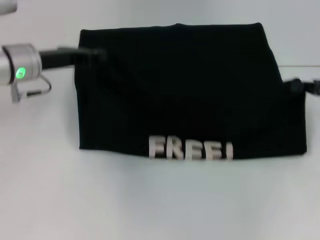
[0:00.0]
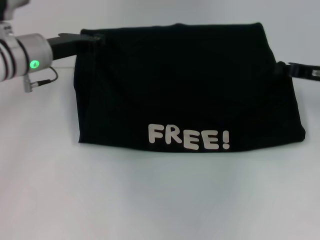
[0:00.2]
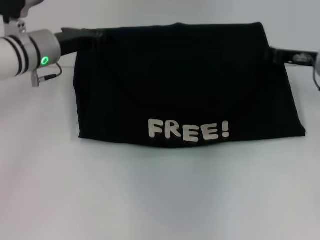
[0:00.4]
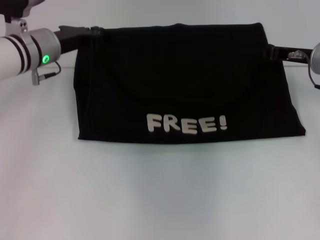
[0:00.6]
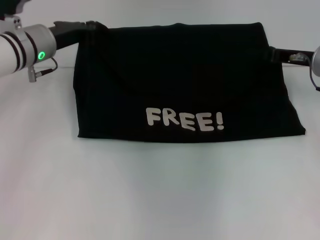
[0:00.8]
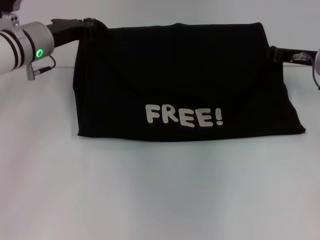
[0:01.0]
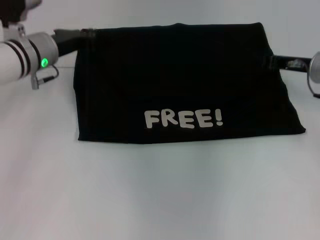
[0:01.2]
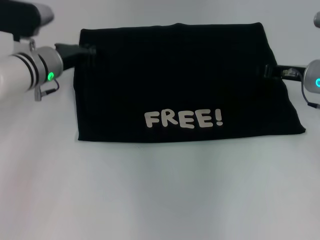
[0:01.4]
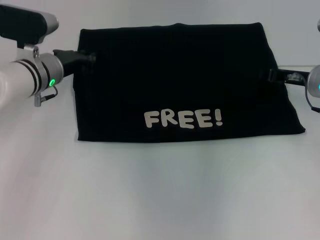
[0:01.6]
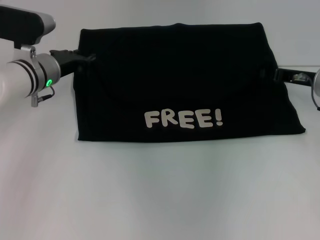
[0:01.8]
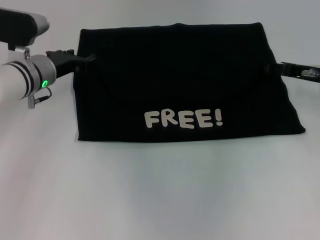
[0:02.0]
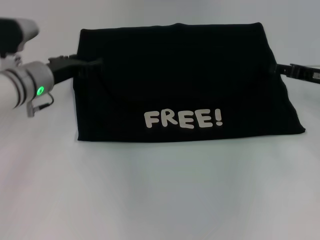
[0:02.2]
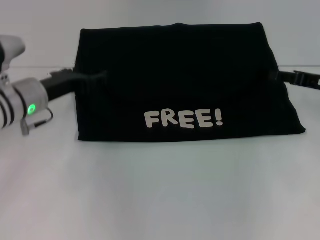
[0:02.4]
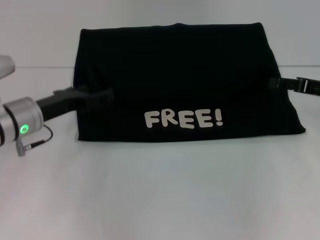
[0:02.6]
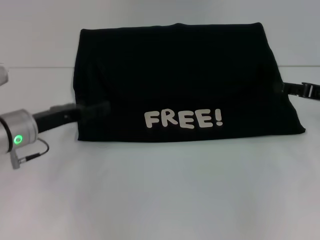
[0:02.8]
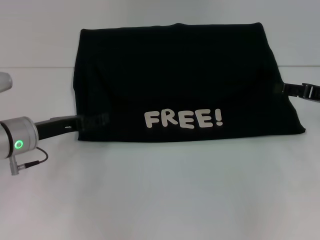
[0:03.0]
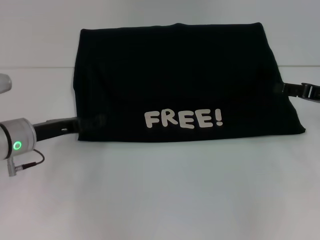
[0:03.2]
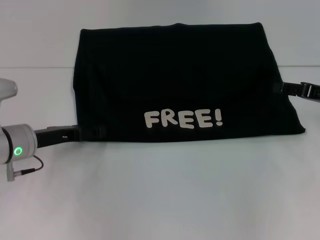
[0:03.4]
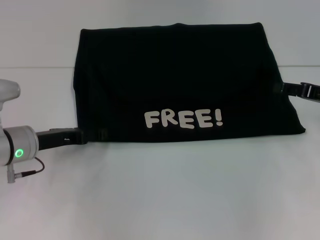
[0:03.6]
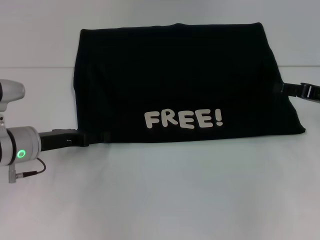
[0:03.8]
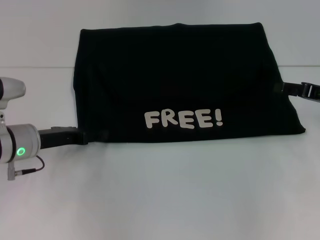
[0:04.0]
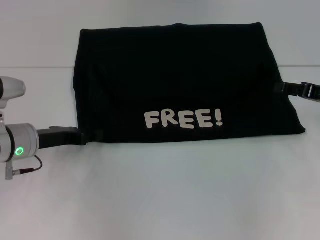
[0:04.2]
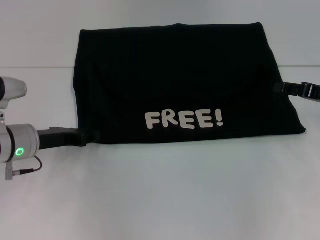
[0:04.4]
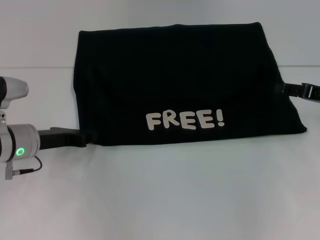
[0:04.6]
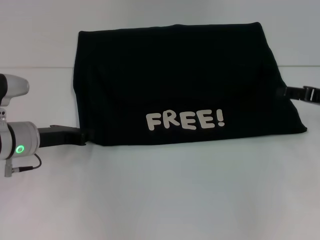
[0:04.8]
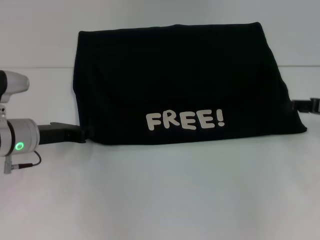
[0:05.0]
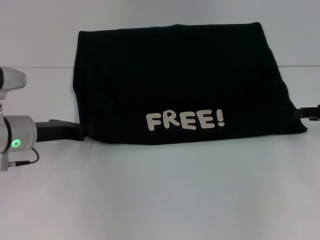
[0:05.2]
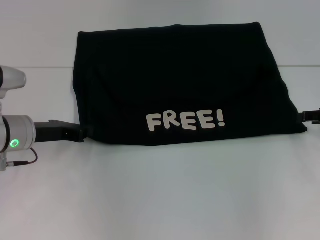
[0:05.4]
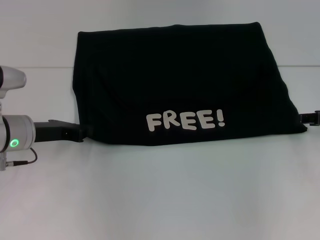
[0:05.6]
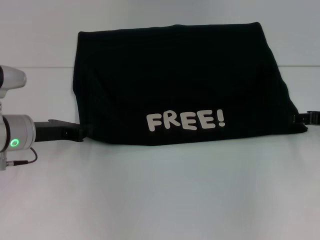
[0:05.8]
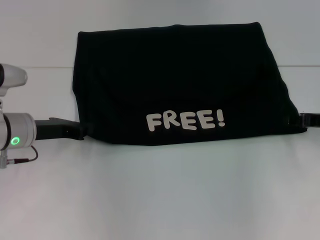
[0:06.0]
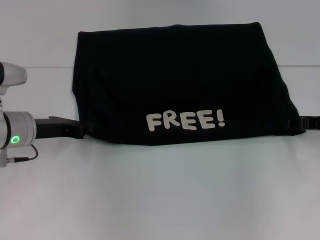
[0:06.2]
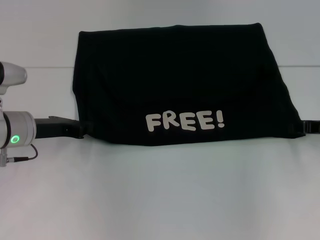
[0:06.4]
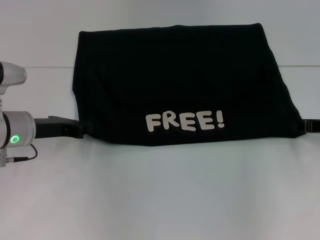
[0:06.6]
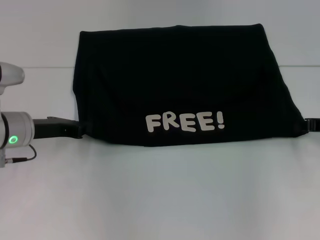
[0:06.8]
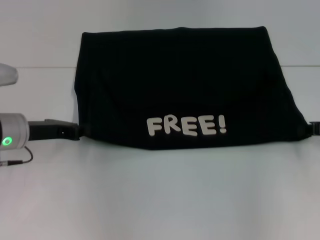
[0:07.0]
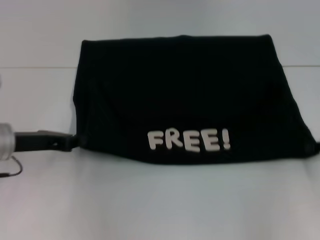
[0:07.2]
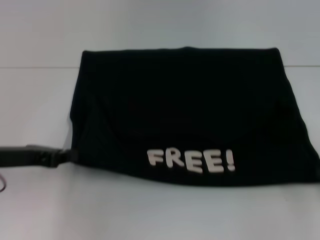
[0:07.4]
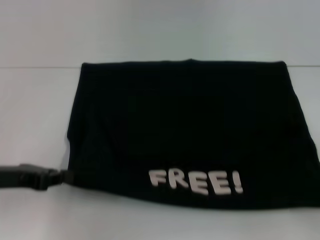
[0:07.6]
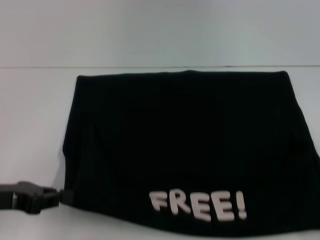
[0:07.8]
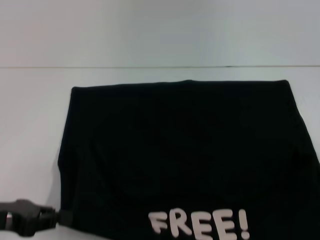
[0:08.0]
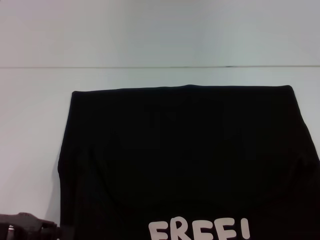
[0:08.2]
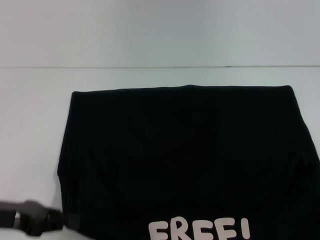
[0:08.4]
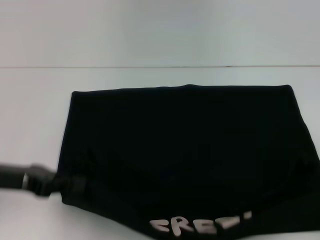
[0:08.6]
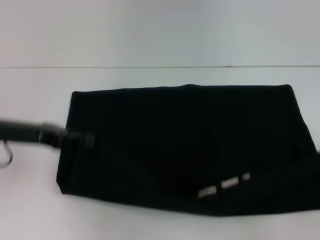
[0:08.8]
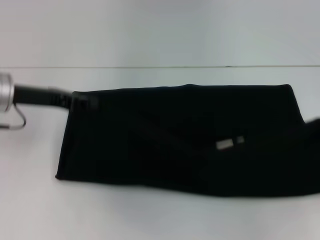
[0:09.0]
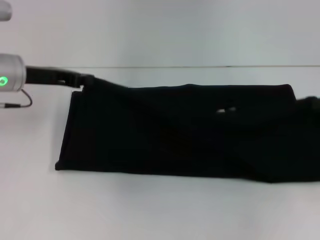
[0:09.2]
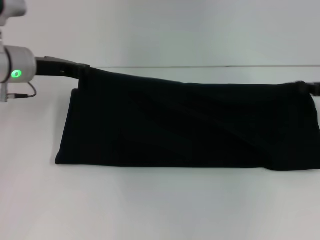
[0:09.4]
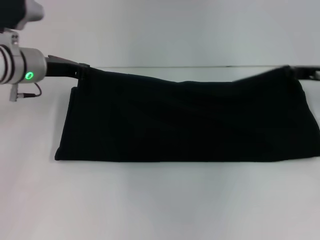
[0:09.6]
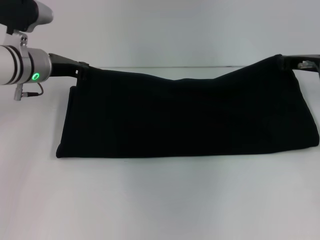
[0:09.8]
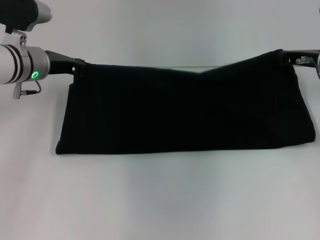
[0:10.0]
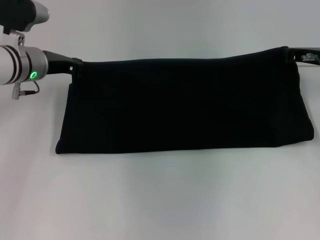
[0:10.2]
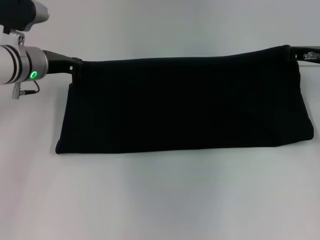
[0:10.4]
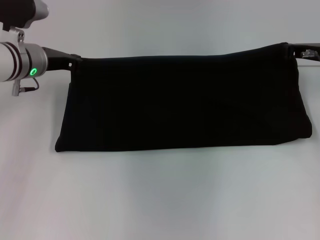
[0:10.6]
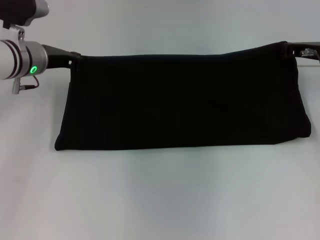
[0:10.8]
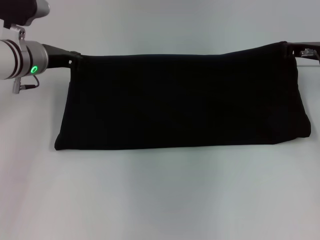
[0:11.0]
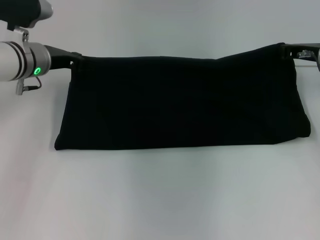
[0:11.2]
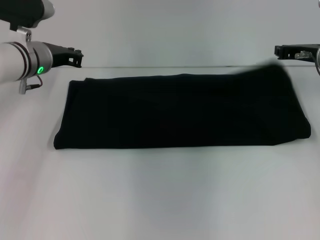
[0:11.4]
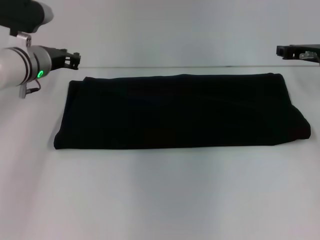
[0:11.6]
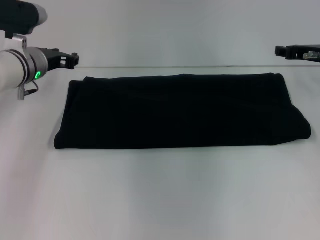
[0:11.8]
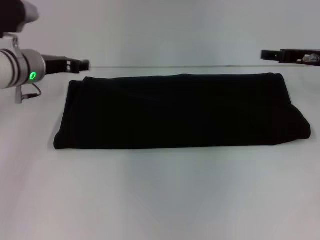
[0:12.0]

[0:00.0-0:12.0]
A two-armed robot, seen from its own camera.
Step, 0:02.0 to 0:08.0: Pull the clothes with your left hand.
Step, 0:02.0 to 0:08.0: Pull the clothes with your right hand.
Step, 0:08.2 to 0:11.2: Fold the clothes with your right hand.
0:00.0 to 0:01.6: The right gripper heads to the left and forward, covering about 10 cm. The left gripper shifts by about 5 cm.
0:01.6 to 0:03.0: The left gripper heads backward, covering about 10 cm, and opens its fingers, while the right gripper heads to the right and backward, covering approximately 10 cm, and opens its fingers.
0:03.0 to 0:04.4: The grippers stay close to where they were, moving slightly.
0:04.4 to 0:06.0: The left gripper closes up.
0:06.0 to 0:07.6: The right gripper heads backward and to the right, covering some 15 cm, and closes up; the left gripper goes approximately 10 cm backward and to the left.
0:07.6 to 0:09.0: The left gripper is displaced forward and upward by approximately 10 cm. The right gripper moves forward, about 5 cm.
0:09.0 to 0:10.4: The right gripper shifts roughly 15 cm forward and to the left. The left gripper moves forward, roughly 5 cm.
0:10.4 to 0:12.0: The right gripper opens its fingers; the left gripper opens.

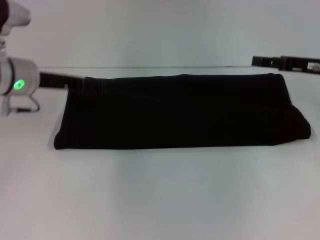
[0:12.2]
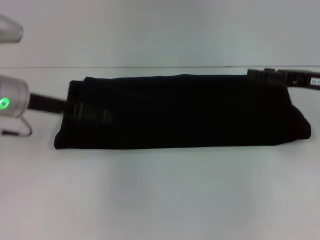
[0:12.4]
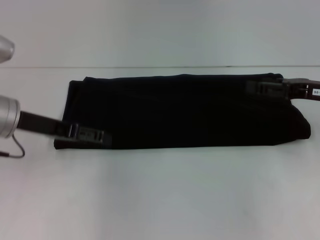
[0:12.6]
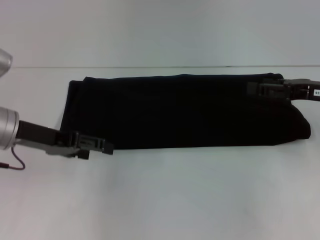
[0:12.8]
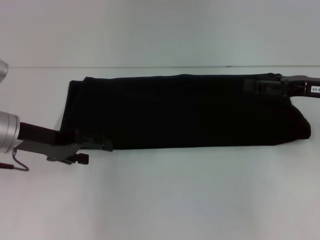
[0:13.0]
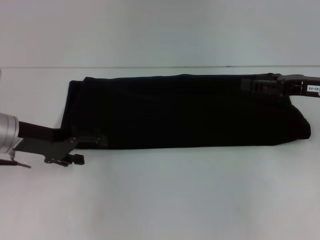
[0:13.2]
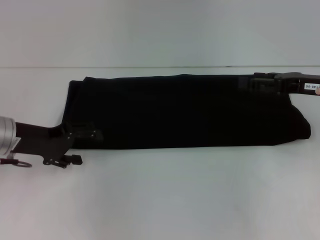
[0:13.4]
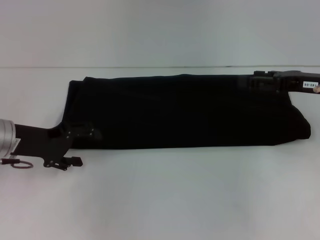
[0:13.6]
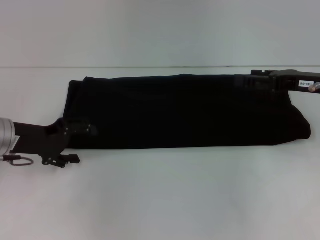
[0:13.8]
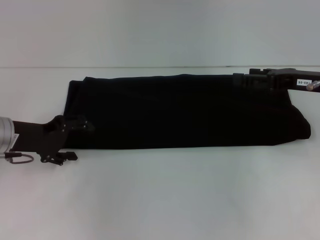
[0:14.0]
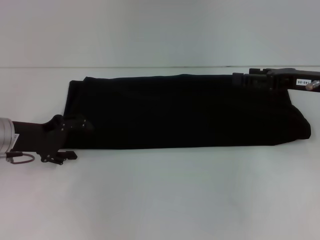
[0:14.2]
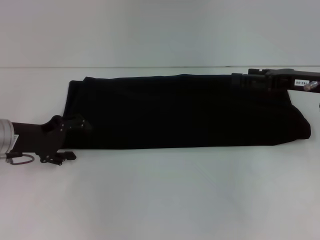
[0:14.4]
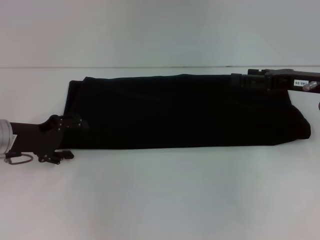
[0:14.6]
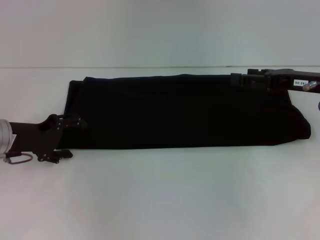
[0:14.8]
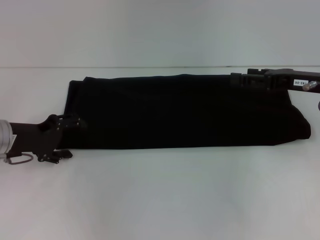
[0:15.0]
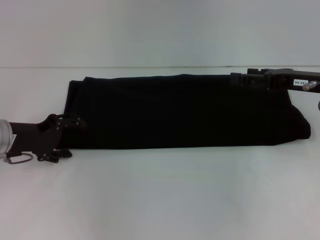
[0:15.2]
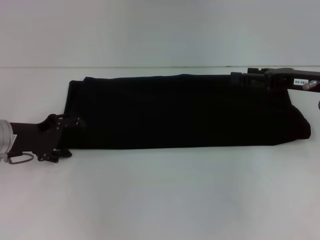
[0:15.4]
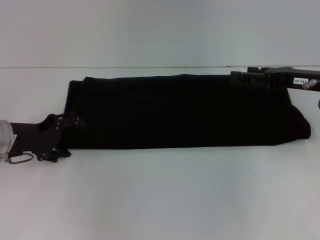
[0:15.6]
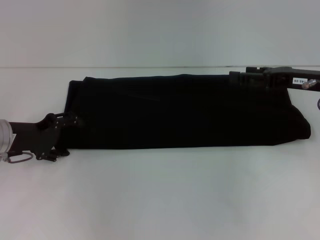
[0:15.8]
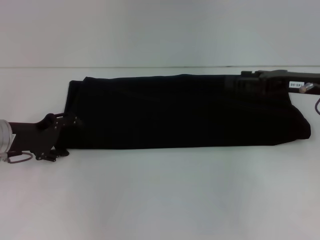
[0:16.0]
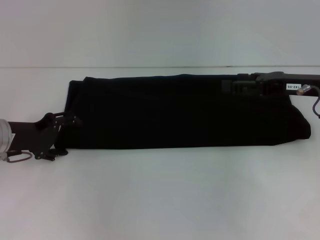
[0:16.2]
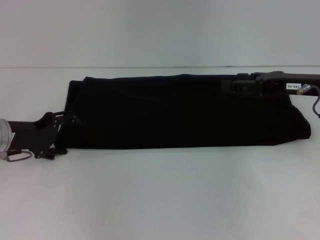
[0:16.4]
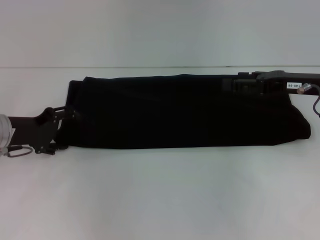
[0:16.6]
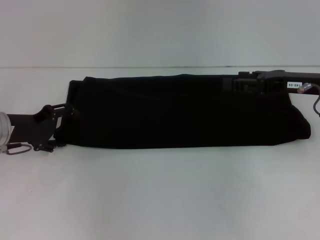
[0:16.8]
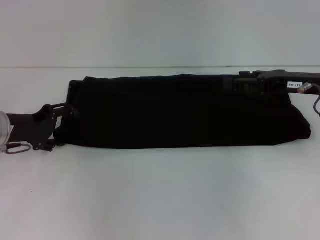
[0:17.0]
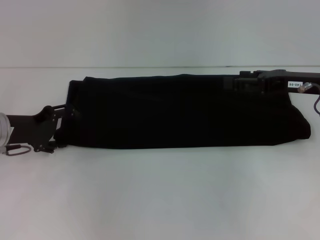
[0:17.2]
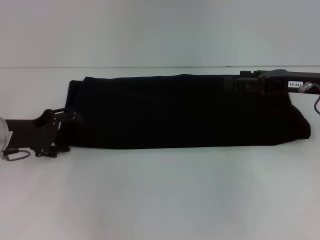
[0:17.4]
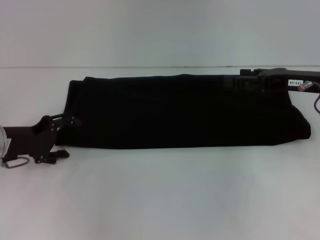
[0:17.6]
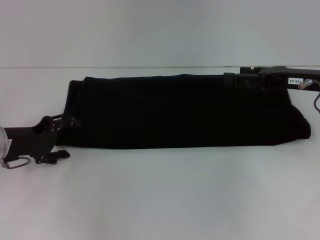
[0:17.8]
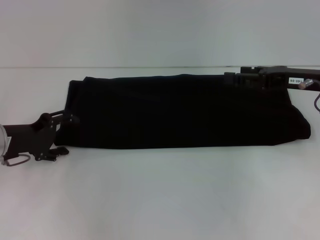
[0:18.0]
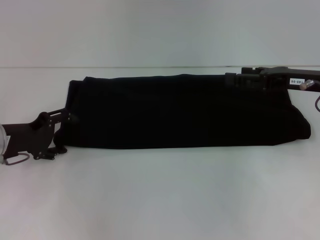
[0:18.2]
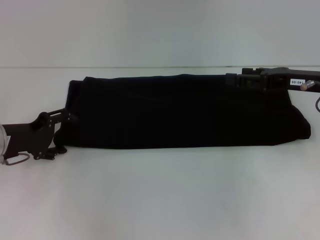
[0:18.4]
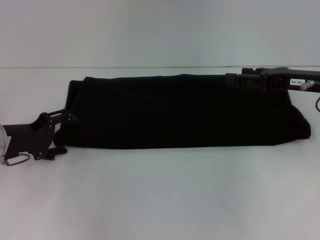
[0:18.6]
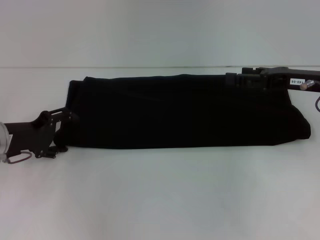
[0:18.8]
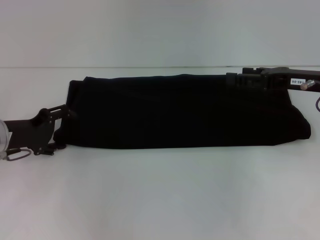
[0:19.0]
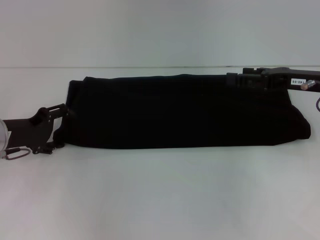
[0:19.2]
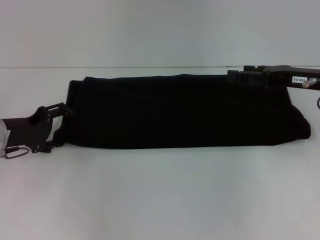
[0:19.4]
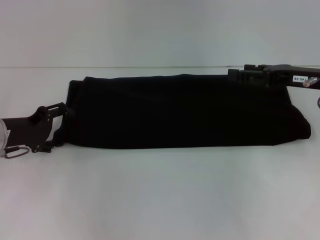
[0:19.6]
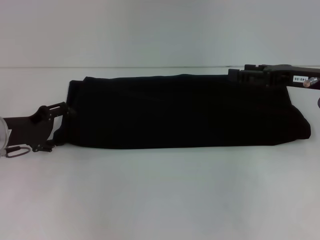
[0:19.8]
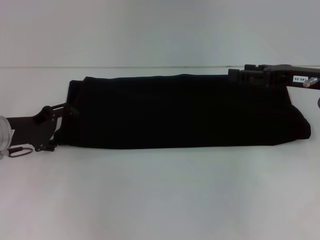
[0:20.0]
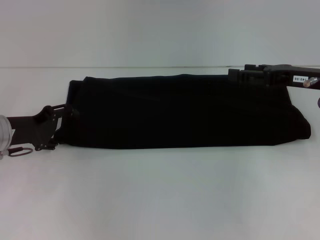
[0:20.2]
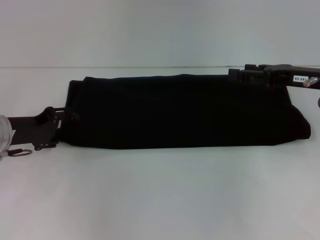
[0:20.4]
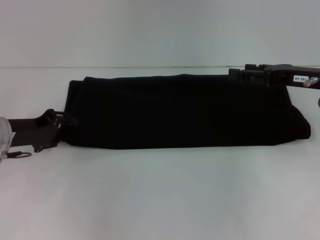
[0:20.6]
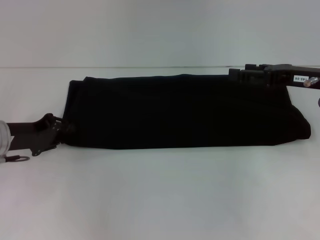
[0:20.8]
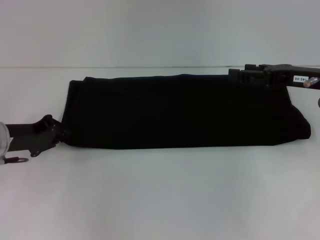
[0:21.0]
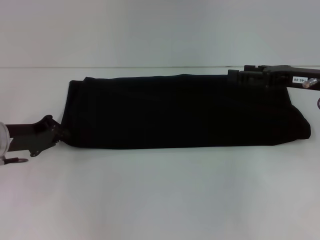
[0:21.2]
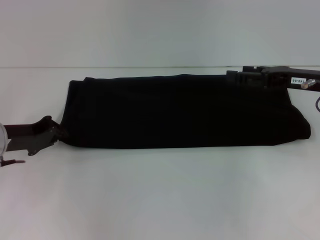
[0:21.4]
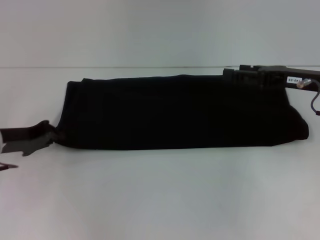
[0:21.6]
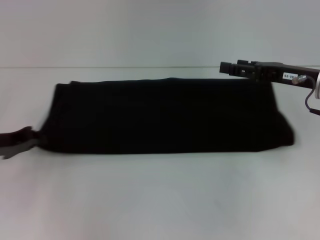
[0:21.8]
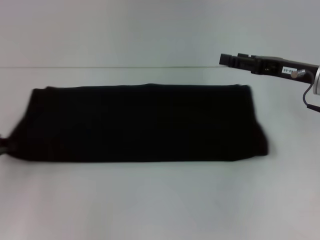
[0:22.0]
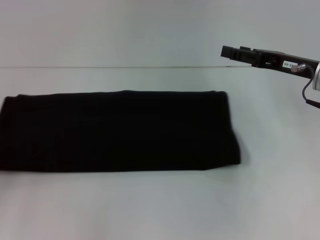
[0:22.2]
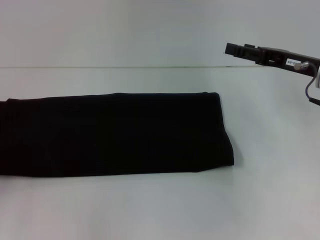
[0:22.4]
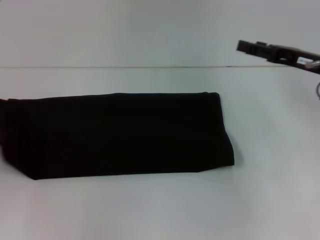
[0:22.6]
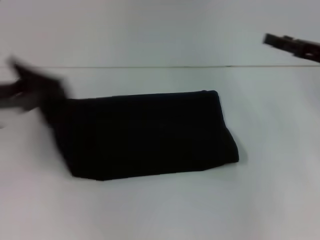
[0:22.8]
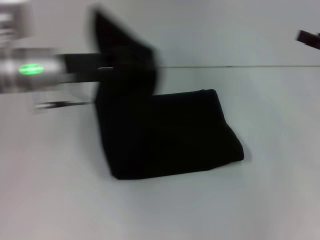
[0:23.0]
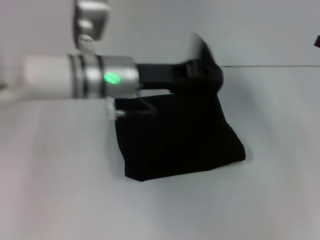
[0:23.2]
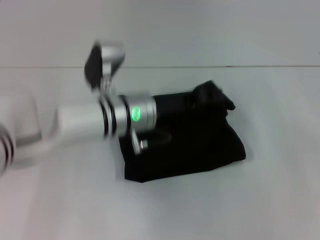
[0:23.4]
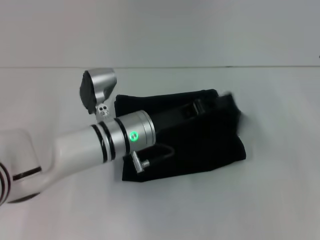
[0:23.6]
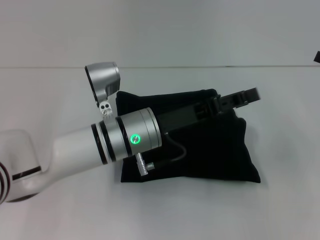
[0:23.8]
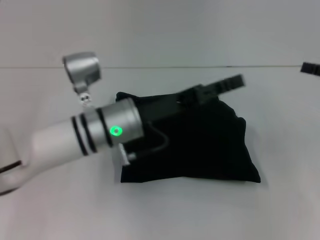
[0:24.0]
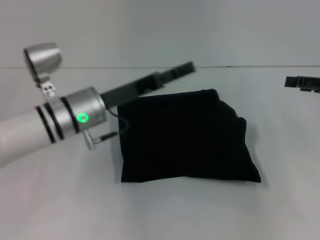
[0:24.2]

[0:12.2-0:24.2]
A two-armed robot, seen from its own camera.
Step, 0:12.2 to 0:23.8: Fold the clothes with your left hand.
0:12.2 to 0:13.8: The left gripper shifts approximately 5 cm backward.
0:13.8 to 0:18.2: The grippers make only small movements.
0:18.2 to 0:19.8: Both grippers stay put.
0:19.8 to 0:21.2: The left gripper closes.
0:21.2 to 0:22.6: The left gripper goes some 10 cm to the left, backward and upward.
0:22.6 to 0:24.2: The left gripper moves to the right, about 25 cm, and opens its fingers, while the right gripper shifts roughly 5 cm to the right.
